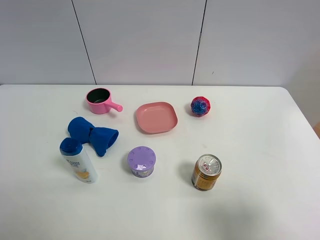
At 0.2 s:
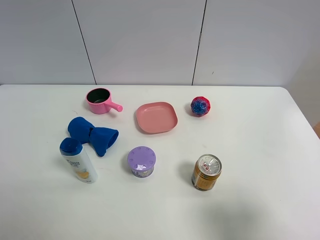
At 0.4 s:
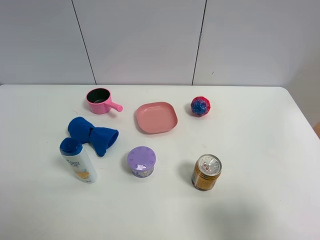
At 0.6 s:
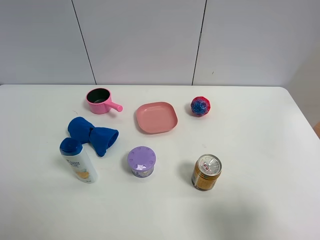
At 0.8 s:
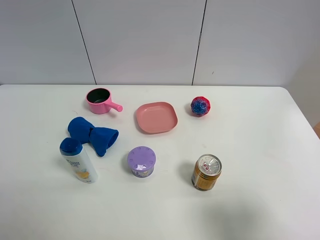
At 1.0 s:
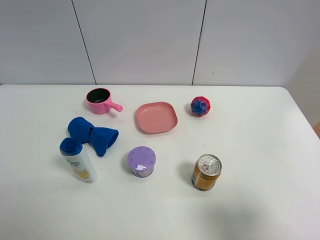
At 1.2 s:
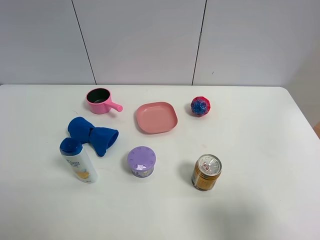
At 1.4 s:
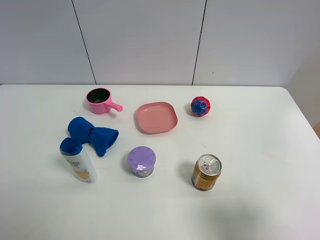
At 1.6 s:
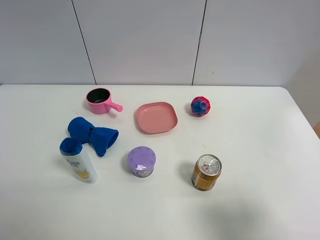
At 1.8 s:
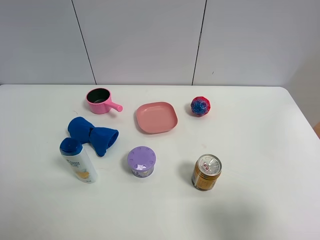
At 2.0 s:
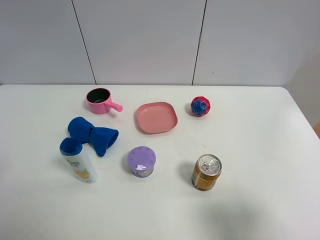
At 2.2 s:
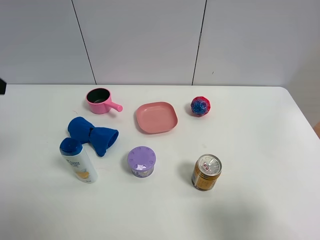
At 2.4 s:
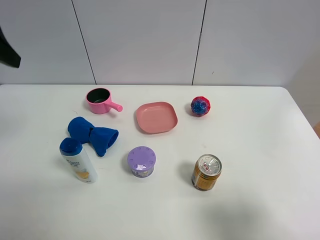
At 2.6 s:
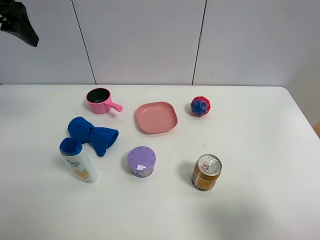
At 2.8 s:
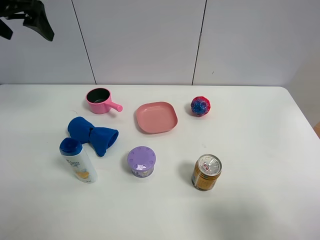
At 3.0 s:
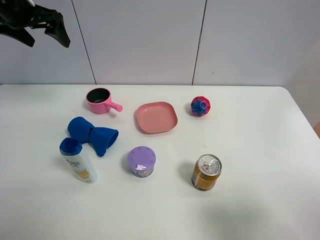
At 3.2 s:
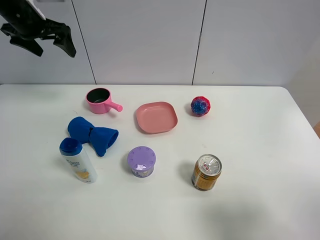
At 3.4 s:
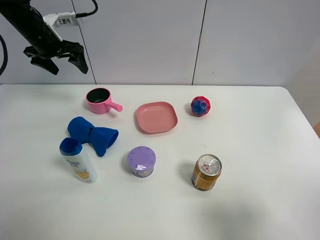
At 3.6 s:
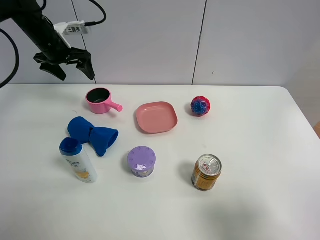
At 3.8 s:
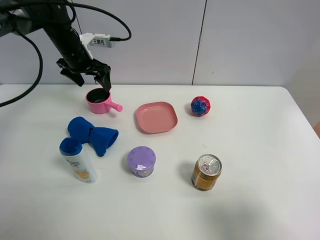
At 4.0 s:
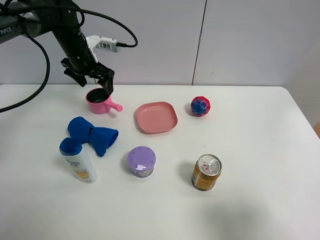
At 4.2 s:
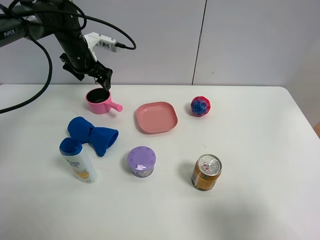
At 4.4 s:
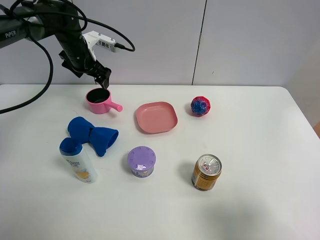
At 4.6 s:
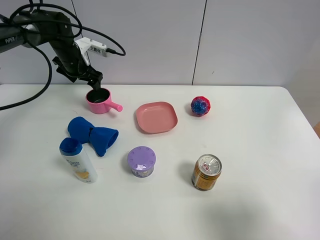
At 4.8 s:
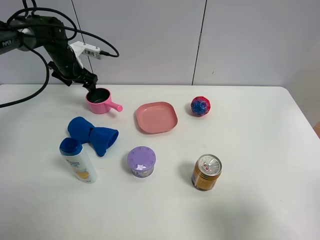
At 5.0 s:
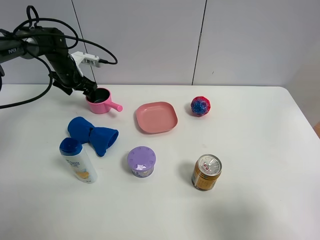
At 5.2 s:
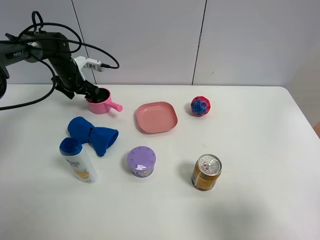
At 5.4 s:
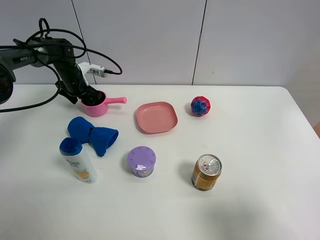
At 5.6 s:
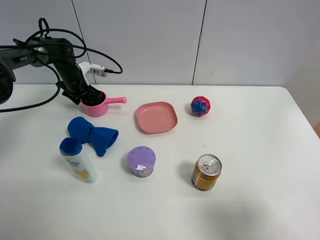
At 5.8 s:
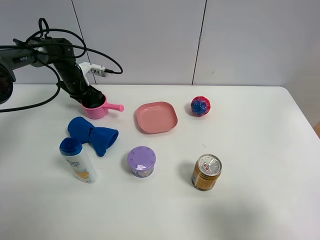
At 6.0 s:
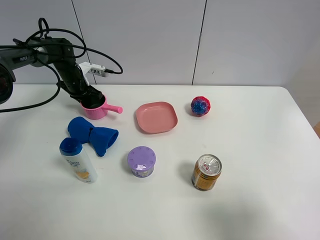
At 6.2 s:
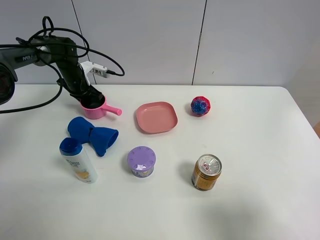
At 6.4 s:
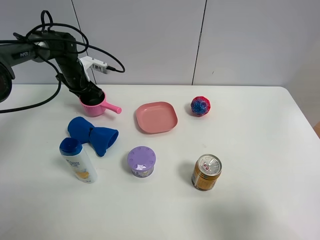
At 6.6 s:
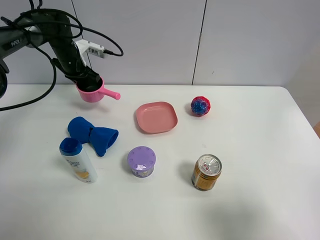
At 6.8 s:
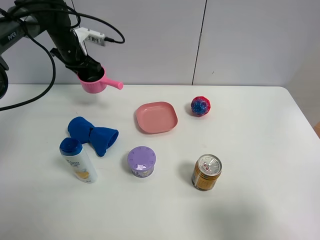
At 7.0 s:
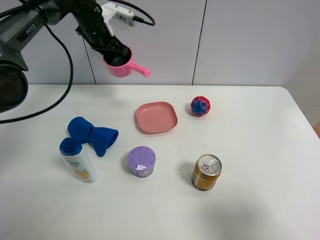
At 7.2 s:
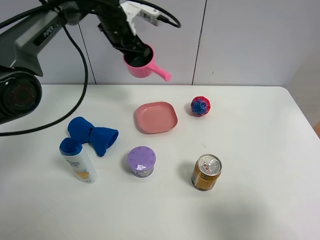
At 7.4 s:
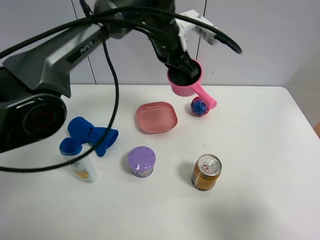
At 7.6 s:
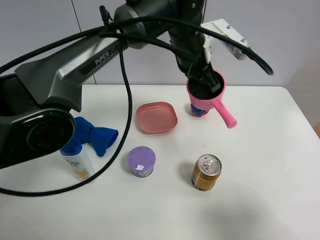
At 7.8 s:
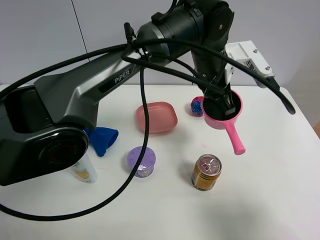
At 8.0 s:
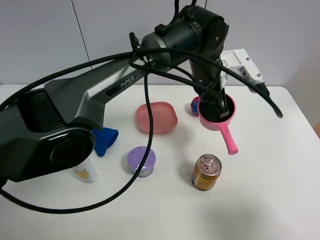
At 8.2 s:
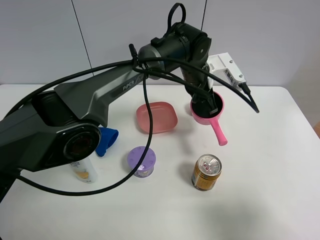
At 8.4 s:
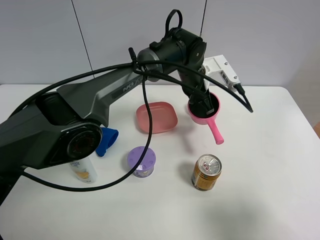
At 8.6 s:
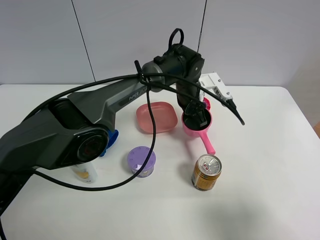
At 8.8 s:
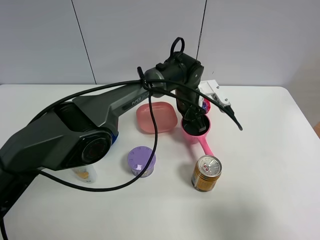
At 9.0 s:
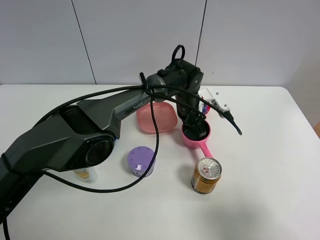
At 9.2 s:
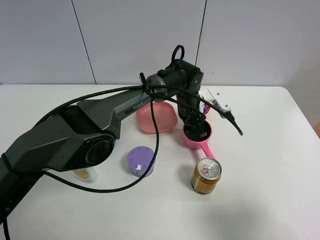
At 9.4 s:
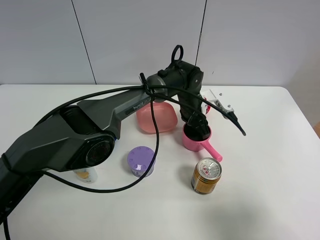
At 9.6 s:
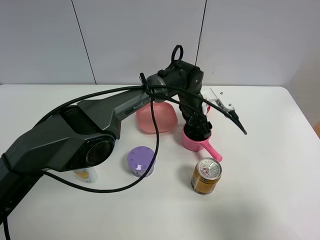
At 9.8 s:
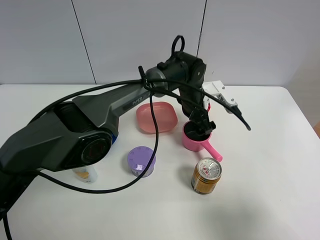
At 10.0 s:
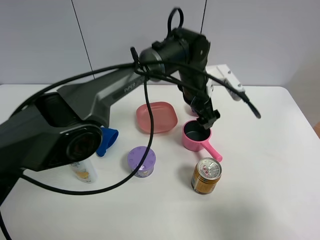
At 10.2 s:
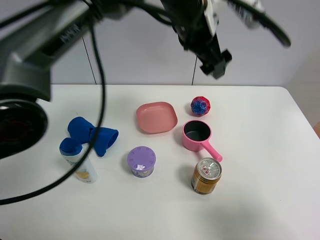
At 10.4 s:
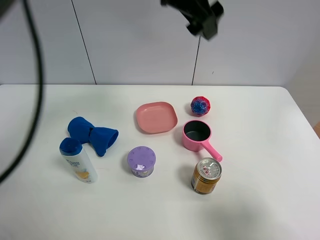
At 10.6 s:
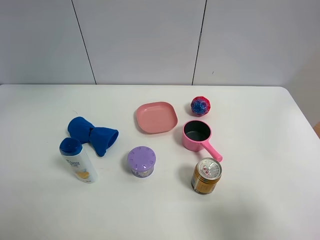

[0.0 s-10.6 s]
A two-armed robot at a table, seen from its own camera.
Task of the whole recording: the gripper move the object.
Step, 0.0 to 5.8 s: Grasp the pink pot with the left gripper.
Step, 6.0 to 9.8 s: Place the pink pot on the table with the left gripper.
1.6 to 3.0 s: The left gripper heads forward, covering about 40 cm.
3.0 to 4.6 s: The left gripper shifts about 20 cm downward and forward.
4.6 to 6.0 s: The left gripper moves downward, roughly 5 cm, and closes up.
6.0 to 7.6 s: The left gripper moves to the right, upward and backward, roughly 40 cm.
7.6 to 9.0 s: The left gripper is displaced downward by roughly 15 cm.
9.0 to 10.6 s: The left gripper moves upward and to the left, about 50 cm, and opens its fingers.

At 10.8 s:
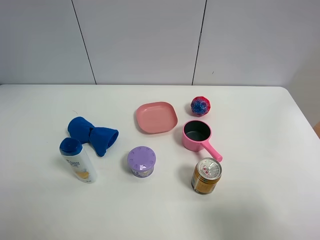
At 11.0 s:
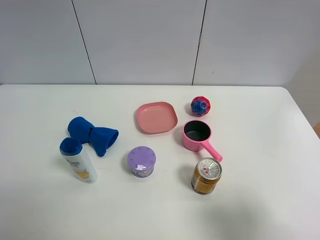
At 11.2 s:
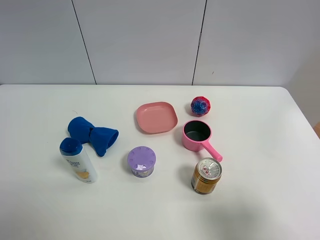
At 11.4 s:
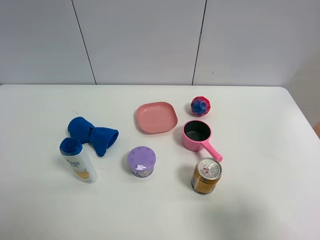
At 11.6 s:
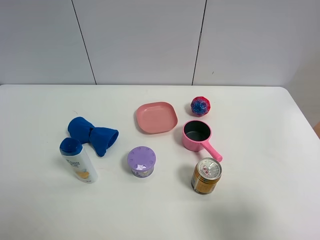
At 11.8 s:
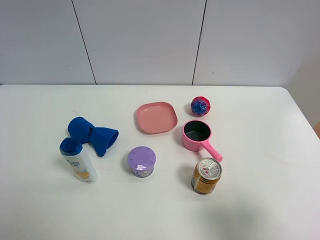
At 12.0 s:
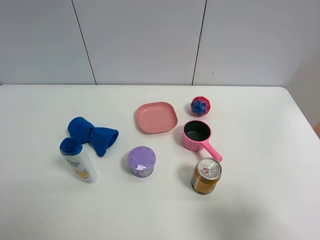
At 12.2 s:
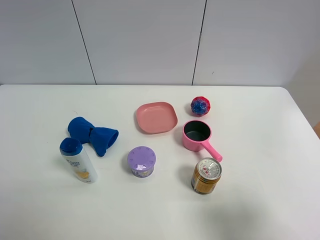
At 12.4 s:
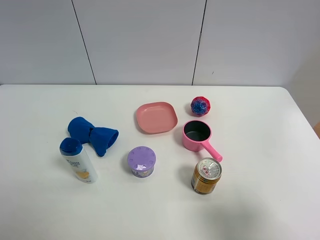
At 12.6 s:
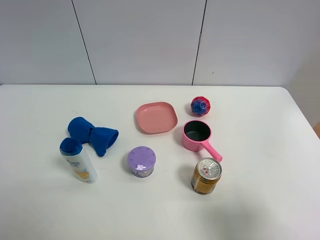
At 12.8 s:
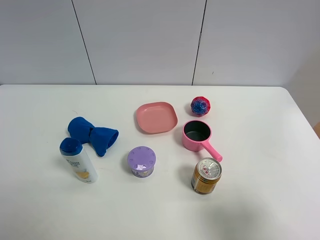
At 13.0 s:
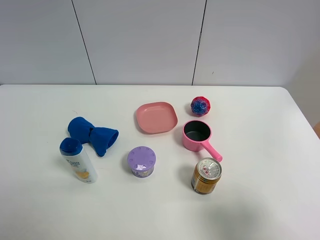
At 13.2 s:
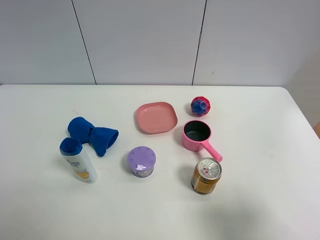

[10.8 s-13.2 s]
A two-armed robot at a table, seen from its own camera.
Task of the whole recording: the gripper move the object.
10.8 to 12.0 s: The left gripper shifts some 40 cm backward and downward.

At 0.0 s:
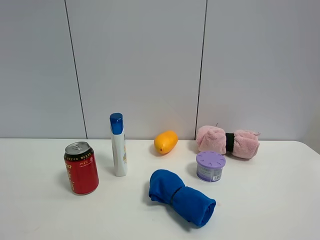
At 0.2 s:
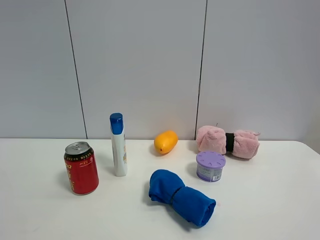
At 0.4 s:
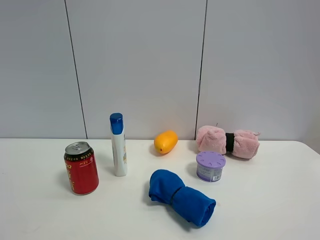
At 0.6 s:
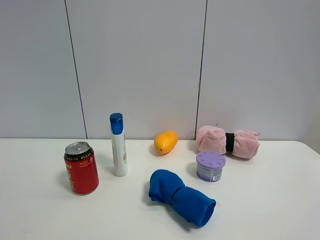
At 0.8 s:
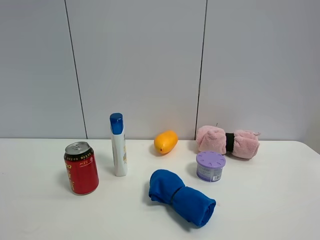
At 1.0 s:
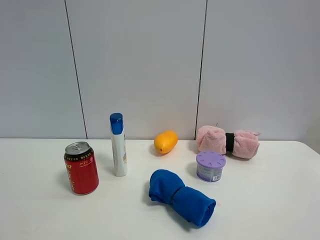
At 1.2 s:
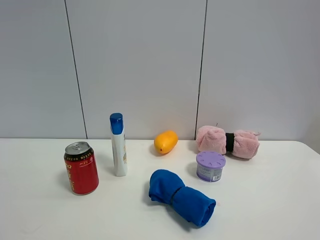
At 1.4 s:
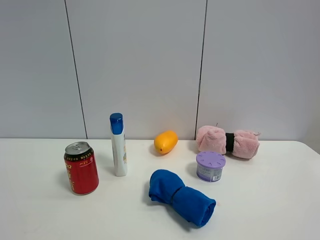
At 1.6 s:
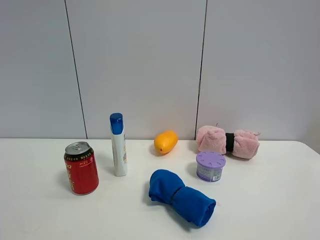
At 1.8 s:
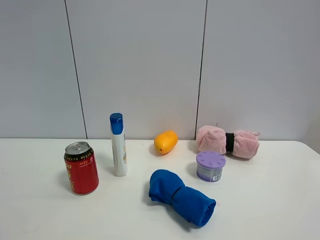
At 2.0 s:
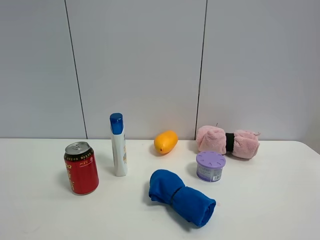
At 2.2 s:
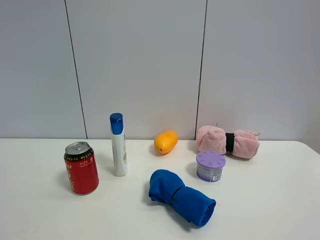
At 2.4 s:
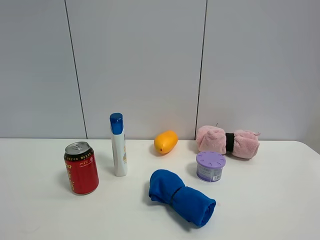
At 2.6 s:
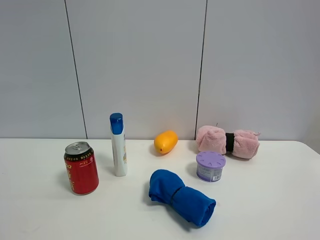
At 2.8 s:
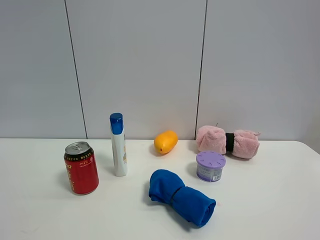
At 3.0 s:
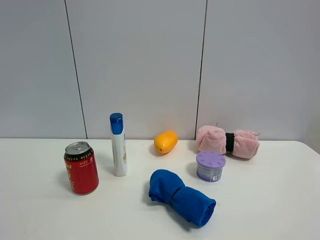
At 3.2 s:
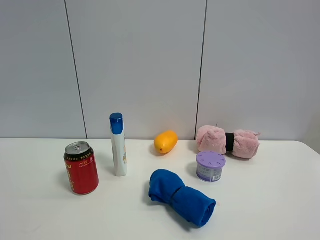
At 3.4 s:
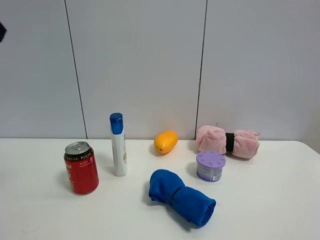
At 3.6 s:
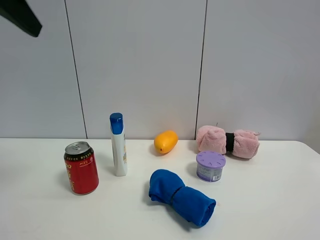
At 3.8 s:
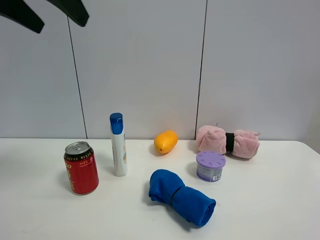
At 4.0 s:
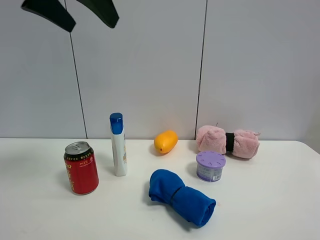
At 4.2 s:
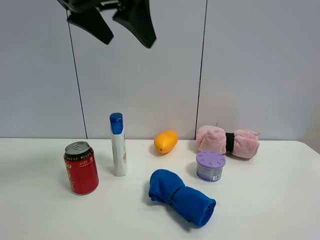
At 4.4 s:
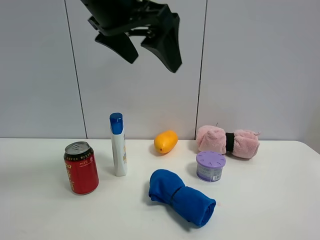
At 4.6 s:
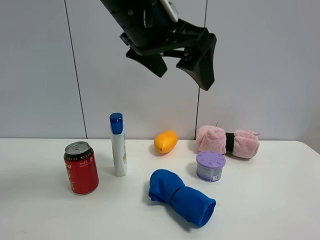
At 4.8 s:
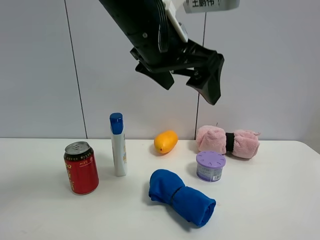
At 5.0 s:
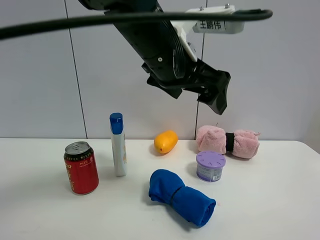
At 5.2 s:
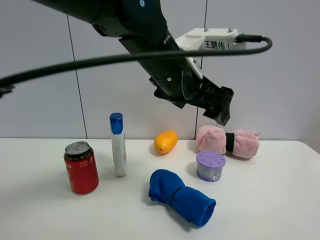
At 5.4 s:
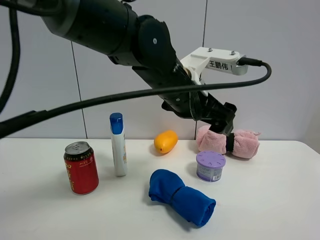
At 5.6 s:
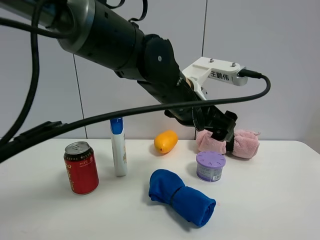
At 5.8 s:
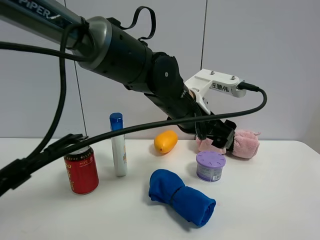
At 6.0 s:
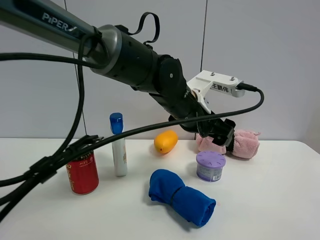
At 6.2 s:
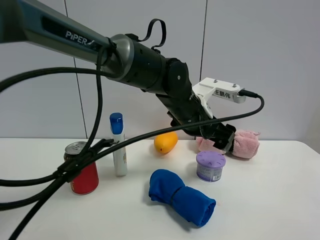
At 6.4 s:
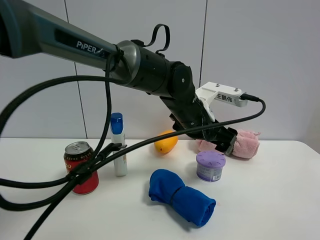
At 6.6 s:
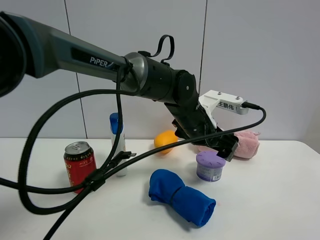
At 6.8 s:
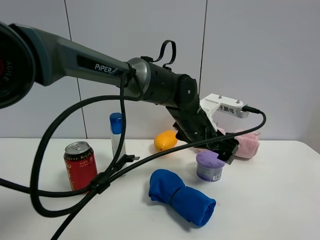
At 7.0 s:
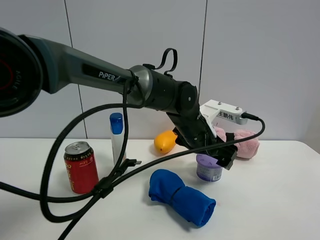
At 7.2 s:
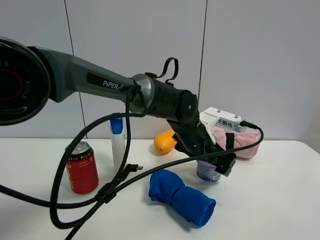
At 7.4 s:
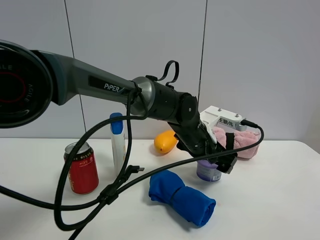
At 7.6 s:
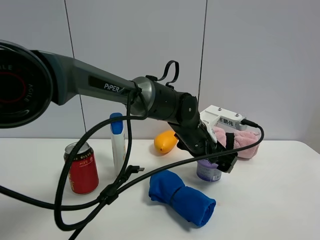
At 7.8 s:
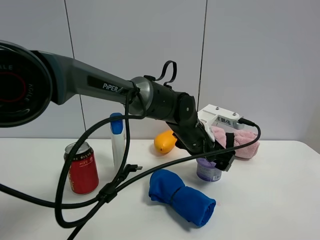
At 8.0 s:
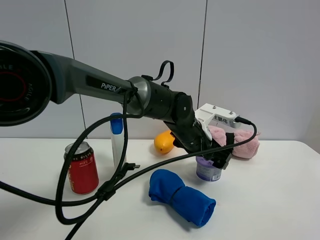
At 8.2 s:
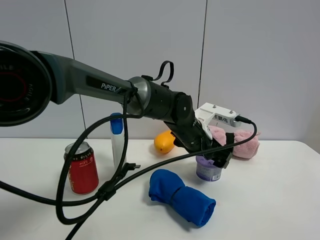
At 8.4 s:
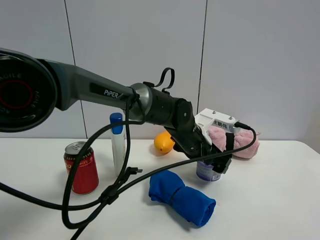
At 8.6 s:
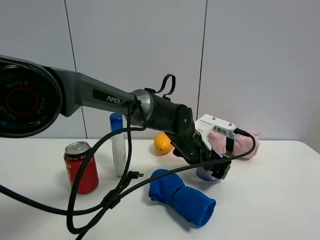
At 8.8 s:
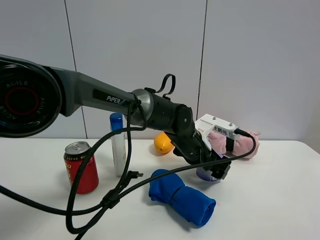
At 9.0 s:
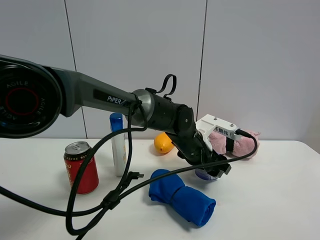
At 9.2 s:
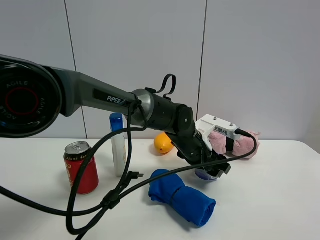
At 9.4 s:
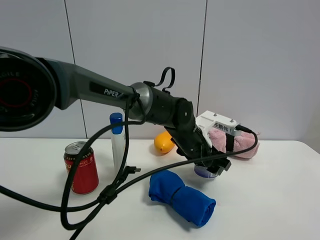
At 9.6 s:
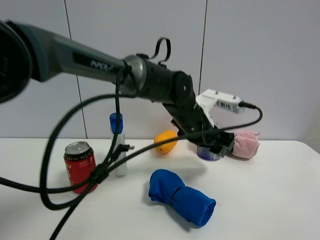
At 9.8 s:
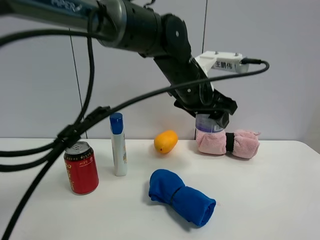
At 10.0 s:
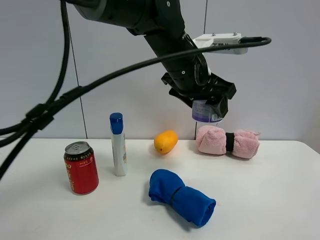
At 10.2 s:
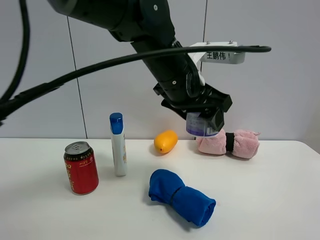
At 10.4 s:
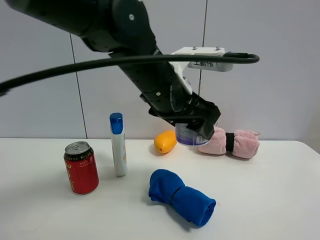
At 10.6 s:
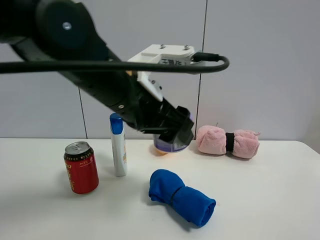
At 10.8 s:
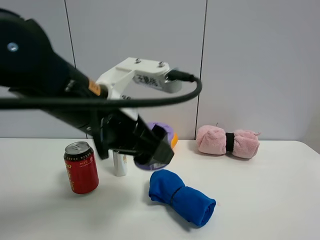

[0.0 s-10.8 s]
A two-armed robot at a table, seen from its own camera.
Task of the whole recording: the gripper move the object.
Step, 0.0 to 9.0 s: Grasp the Incense box with the left gripper.
0.0 to 1.6 s: The two grippers keep their place.
3.0 to 4.6 s: The left gripper moves to the right and forward, about 30 cm.
4.6 to 6.2 s: The left gripper goes approximately 20 cm downward, forward and to the right.
6.2 to 7.8 s: The left gripper moves downward, about 5 cm.
7.8 to 9.2 s: The left gripper closes up.
9.2 to 10.8 s: The left gripper heads backward, to the left and upward, covering about 25 cm.
